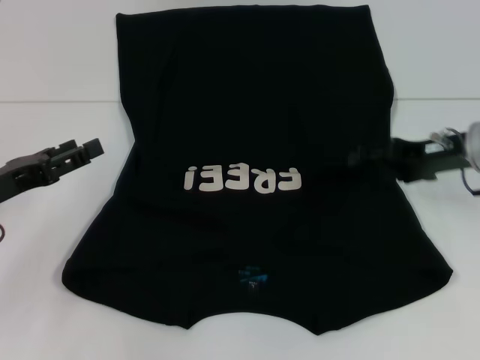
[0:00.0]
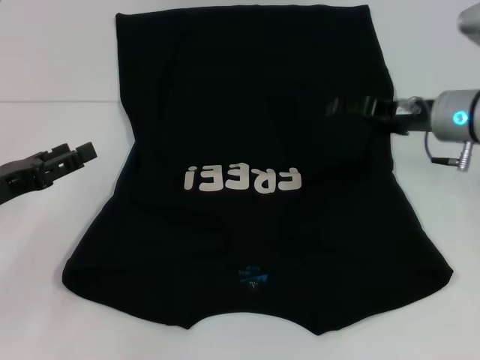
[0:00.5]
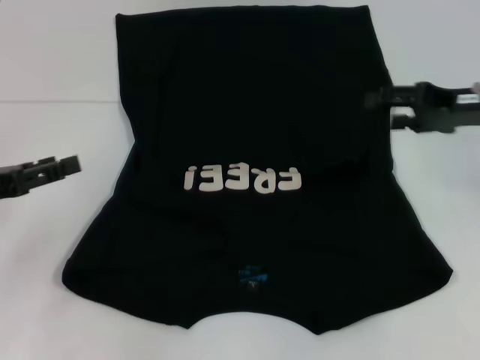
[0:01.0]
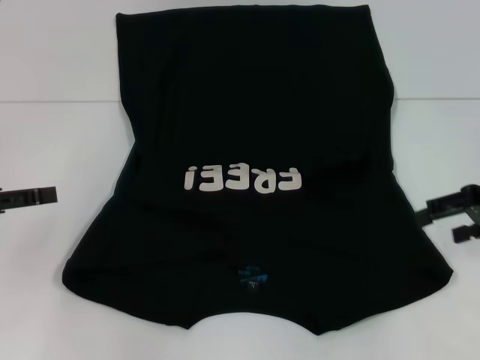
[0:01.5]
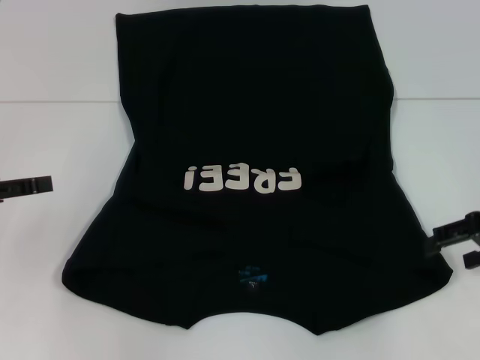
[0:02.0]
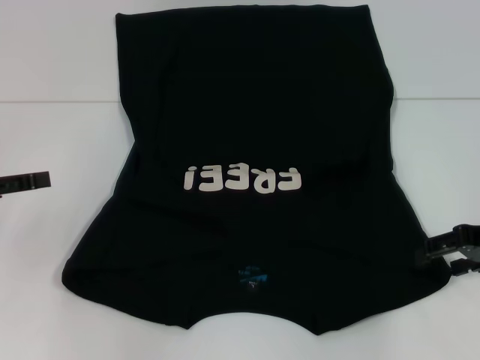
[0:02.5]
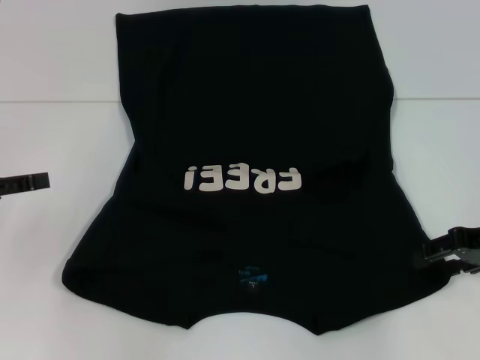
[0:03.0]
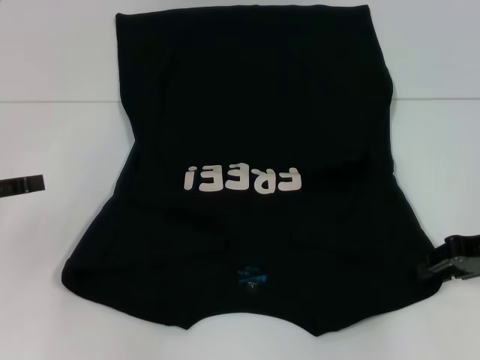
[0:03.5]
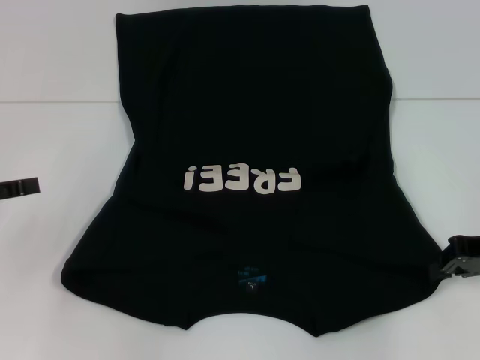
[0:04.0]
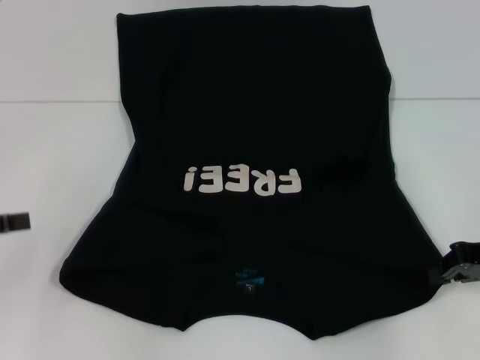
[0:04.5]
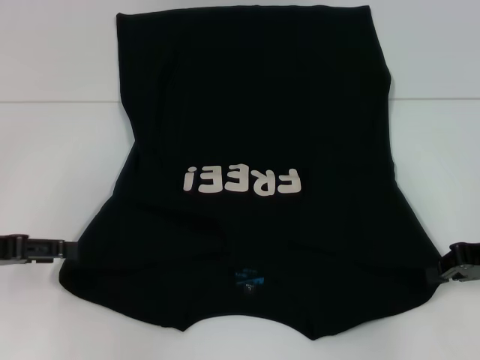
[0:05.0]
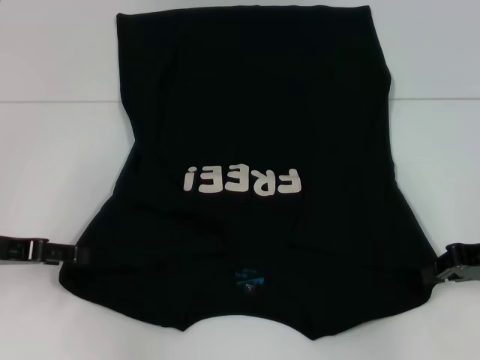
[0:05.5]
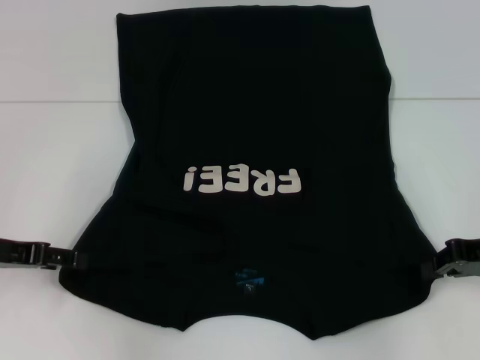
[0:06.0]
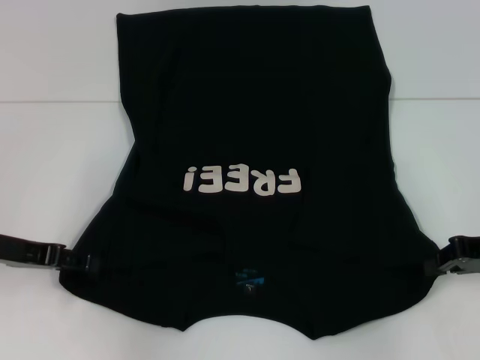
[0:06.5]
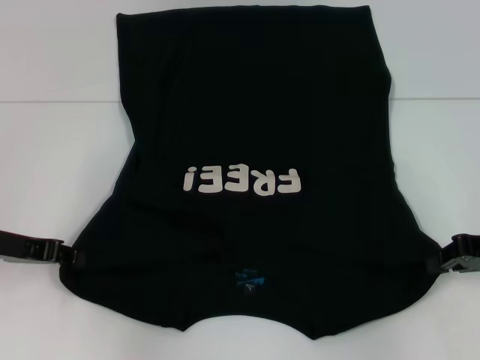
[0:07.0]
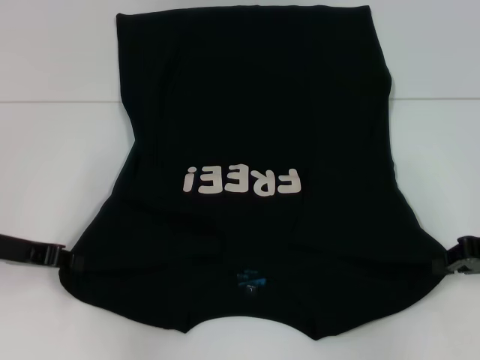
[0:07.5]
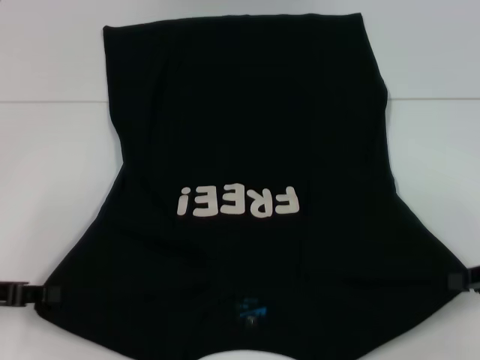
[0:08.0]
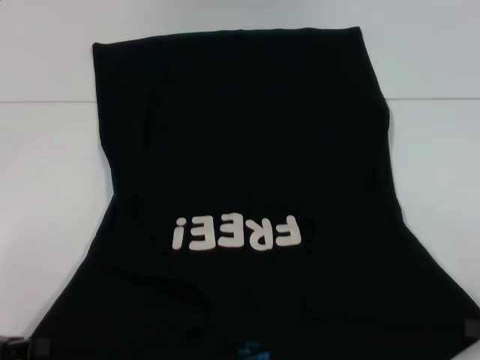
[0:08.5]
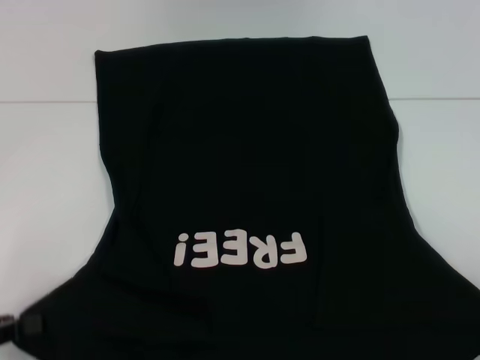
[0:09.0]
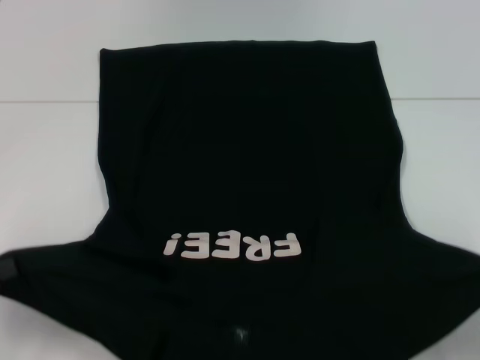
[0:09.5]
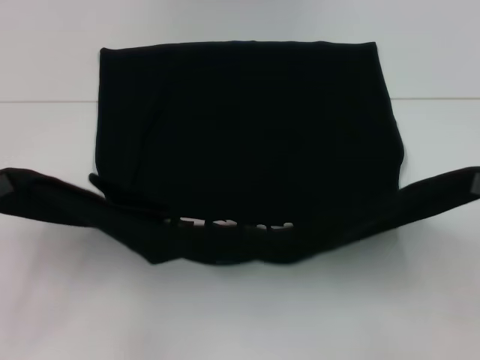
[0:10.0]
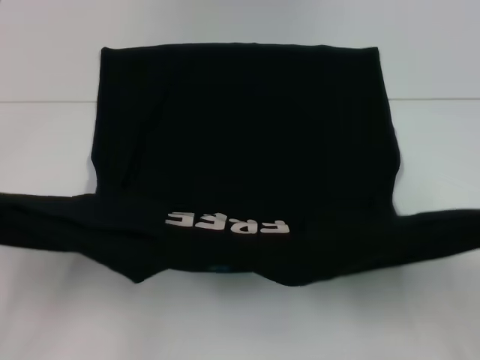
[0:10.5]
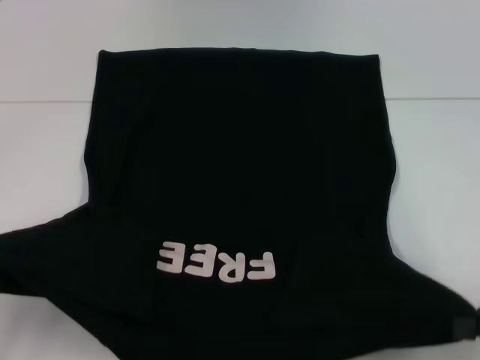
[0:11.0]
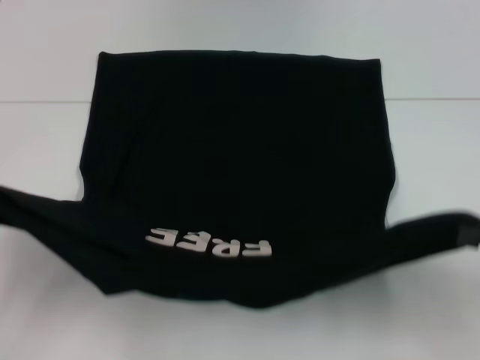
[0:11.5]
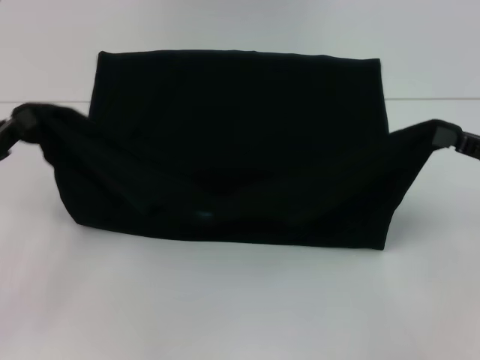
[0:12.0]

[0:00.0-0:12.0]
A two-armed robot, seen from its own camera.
Step, 0:00.0 to 0:04.0: Grab the bottom right corner with your right hand.
Step, 0:04.5 to 0:07.5: Grab the bottom left corner with your left hand.
0:00.0 to 0:02.0: The left gripper ends up roughly 5 cm from where it was. Meanwhile the right gripper is displaced to the right and backward by some 10 cm.
0:02.0 to 0:04.0: The right gripper closes up.
0:04.0 to 0:06.0: The left gripper shifts by roughly 5 cm.
0:06.0 to 0:08.0: The left gripper changes place by some 5 cm, and closes up, while the right gripper goes approximately 5 cm backward.
0:10.0 to 0:12.0: The left gripper heads forward, covering approximately 5 cm.

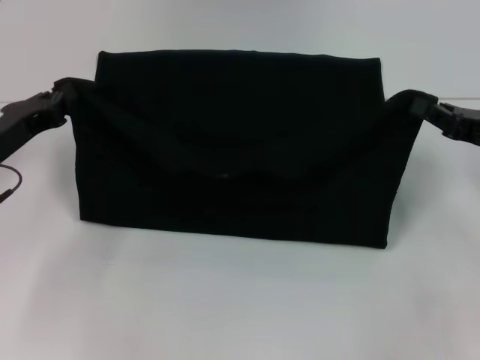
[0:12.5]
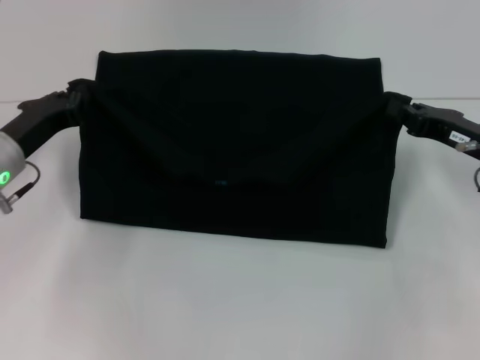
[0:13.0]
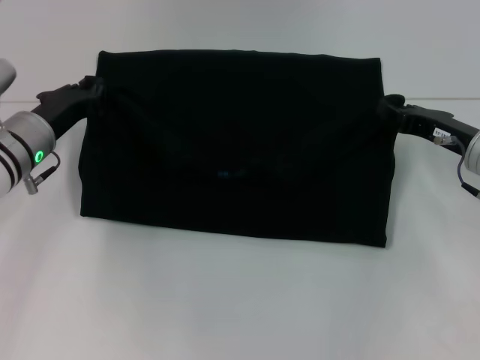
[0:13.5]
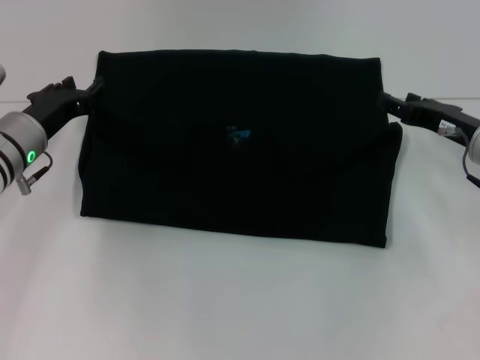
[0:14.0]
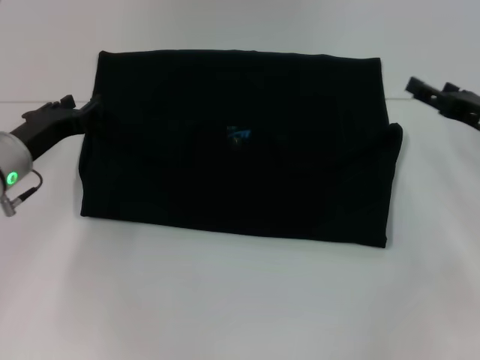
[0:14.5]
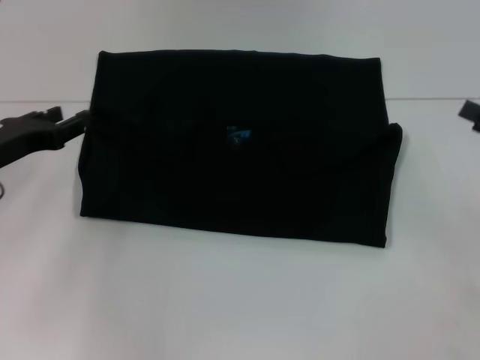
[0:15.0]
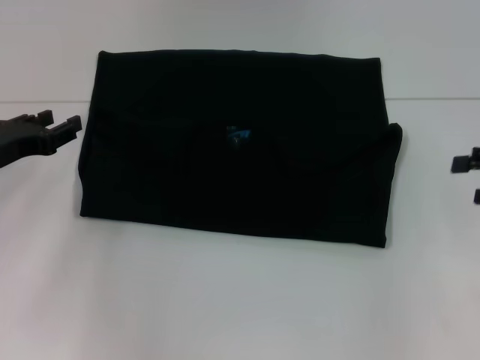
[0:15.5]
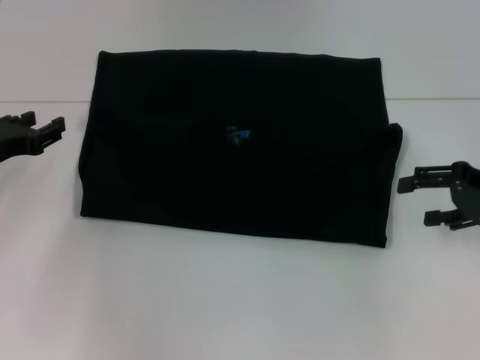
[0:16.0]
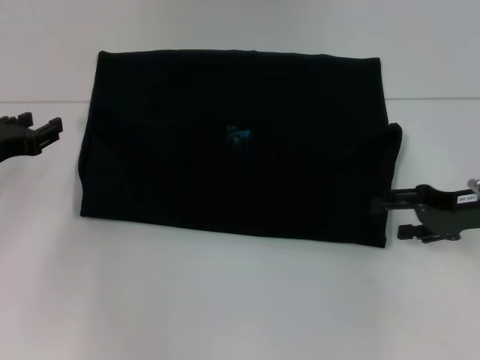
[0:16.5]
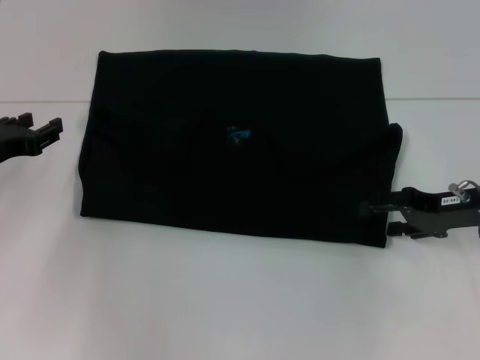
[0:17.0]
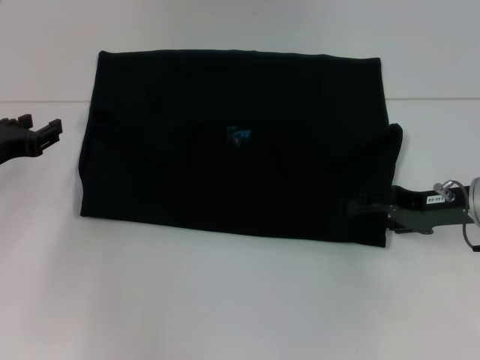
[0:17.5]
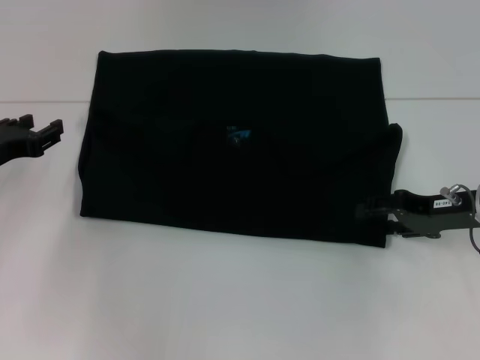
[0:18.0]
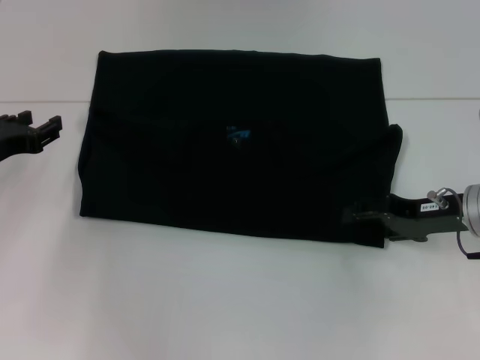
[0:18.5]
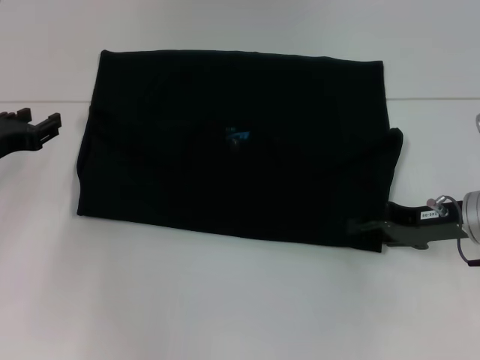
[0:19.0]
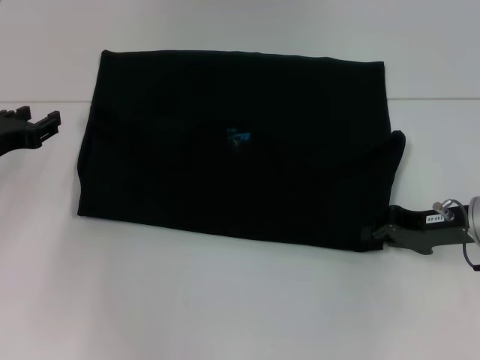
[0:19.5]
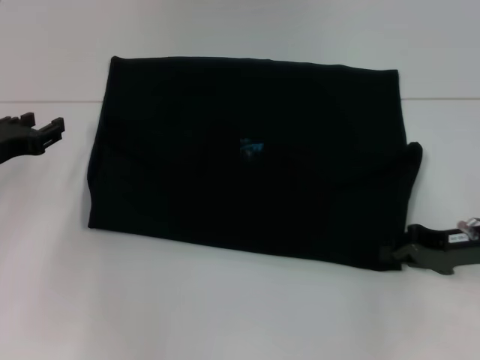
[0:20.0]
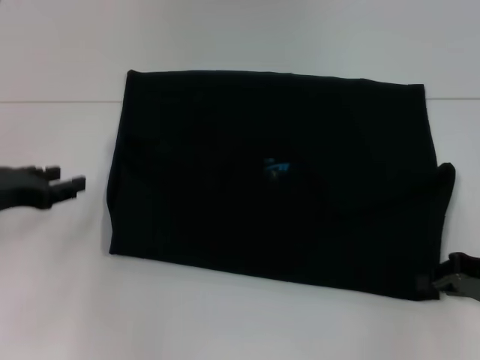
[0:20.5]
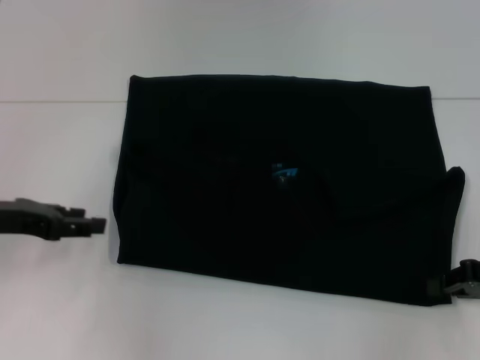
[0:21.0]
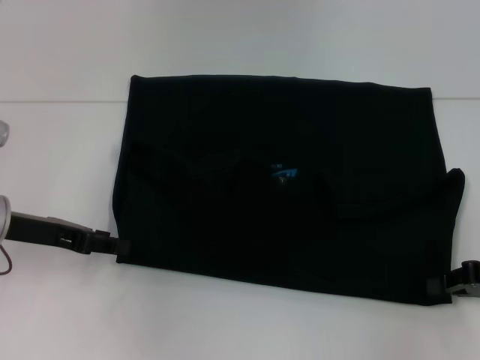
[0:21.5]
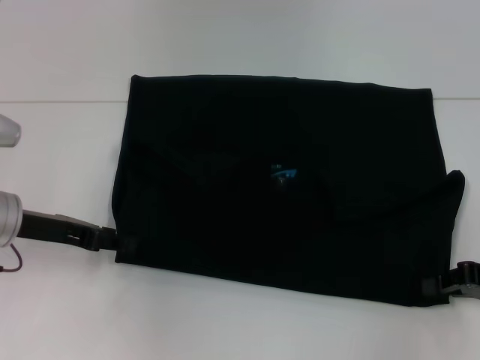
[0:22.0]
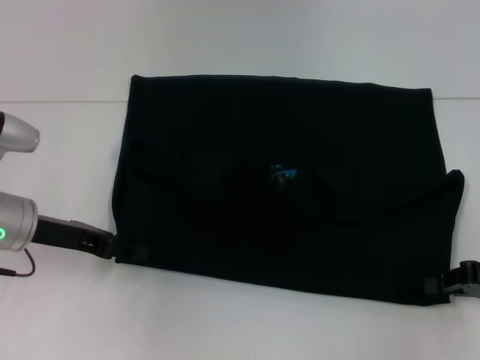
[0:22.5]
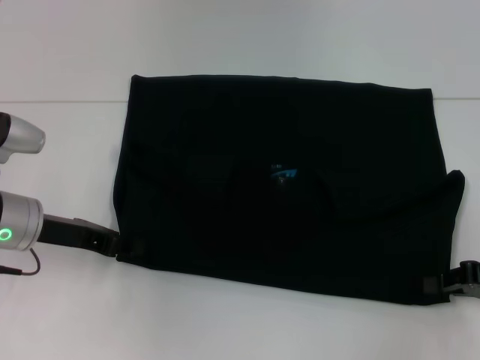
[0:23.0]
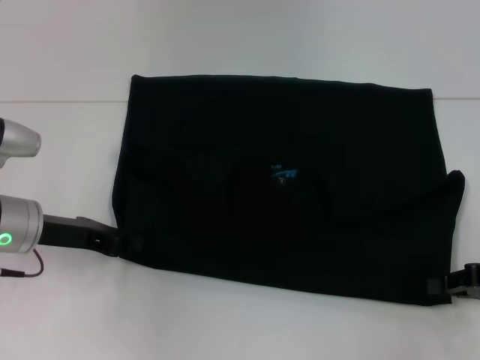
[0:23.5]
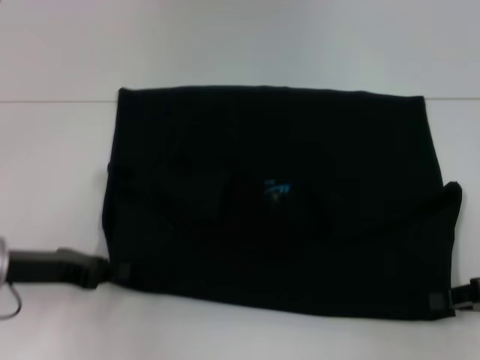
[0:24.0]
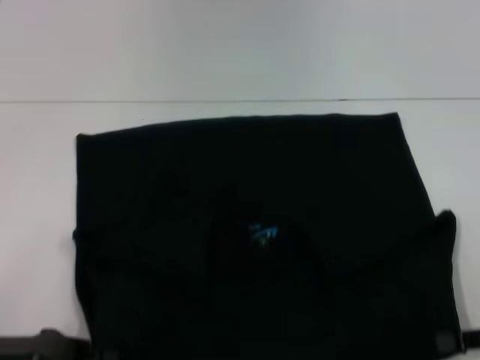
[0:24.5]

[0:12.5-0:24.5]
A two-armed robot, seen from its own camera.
0:12.5 to 0:14.5: The left gripper opens its fingers, while the right gripper opens its fingers.
0:14.5 to 0:16.5: The left gripper shifts by about 5 cm. The right gripper travels to the right and back again, some 5 cm each way.
0:16.5 to 0:18.5: The grippers move only a little.
0:18.5 to 0:20.5: The right gripper moves to the right and backward, about 10 cm, and closes.
0:20.5 to 0:22.5: The left gripper moves to the right, approximately 5 cm.
0:22.5 to 0:24.5: The left gripper heads backward, covering some 10 cm, and closes its fingers.

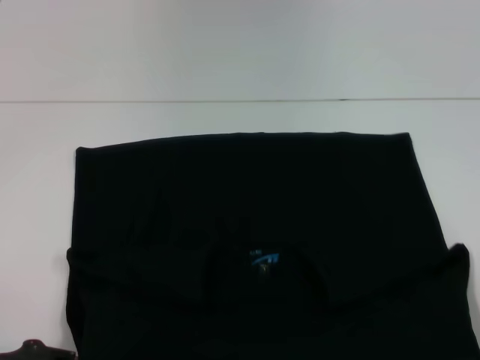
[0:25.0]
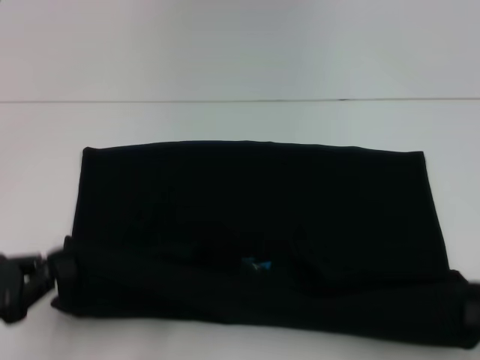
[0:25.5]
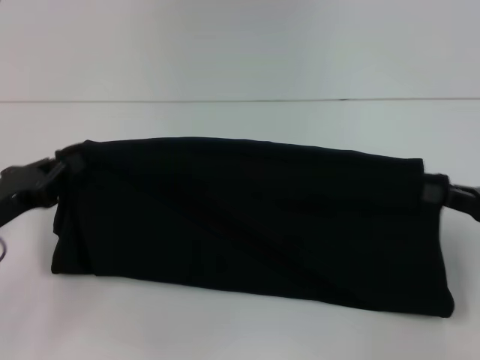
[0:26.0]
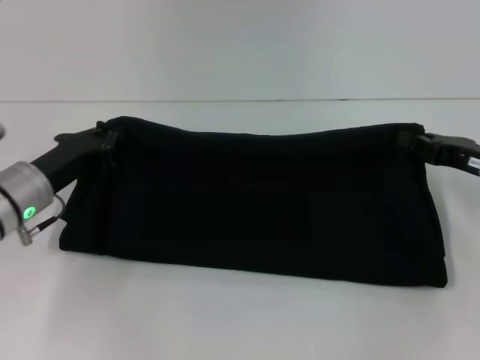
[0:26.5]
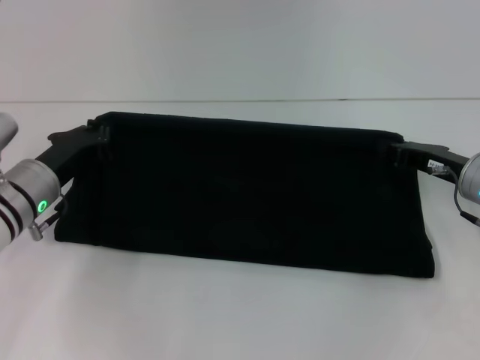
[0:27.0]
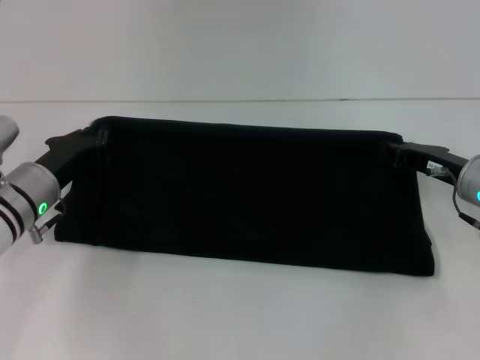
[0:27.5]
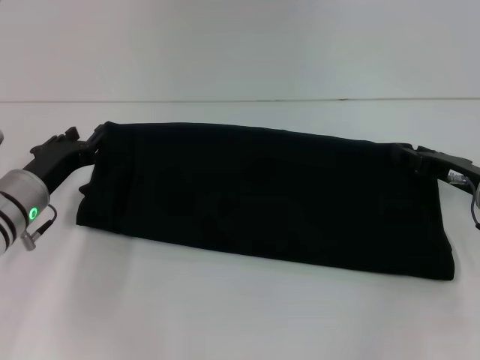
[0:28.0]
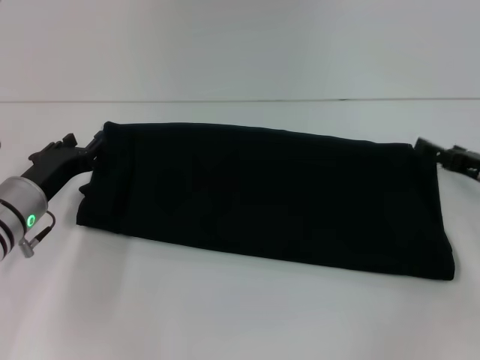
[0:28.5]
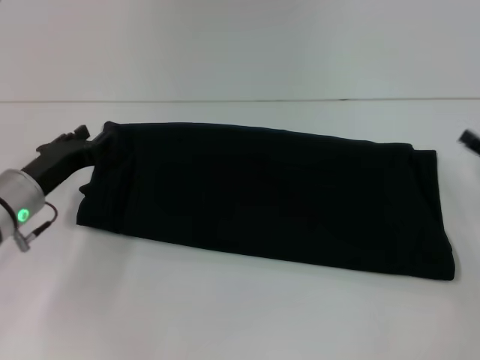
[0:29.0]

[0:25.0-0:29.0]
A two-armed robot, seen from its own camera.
Step, 0:25.5 to 0:28.0: Fold the clothes with your right hand.
0:25.0 to 0:27.0: The right gripper is displaced forward and to the left by some 20 cm. Meanwhile the left gripper moves forward and to the right, about 20 cm.
0:27.0 to 0:29.0: The left gripper opens its fingers, while the right gripper goes approximately 10 cm to the right and backward, and opens its fingers.
